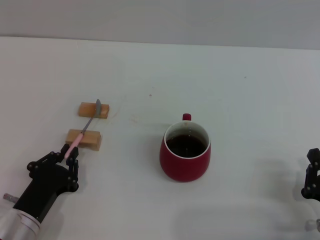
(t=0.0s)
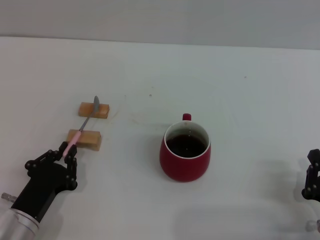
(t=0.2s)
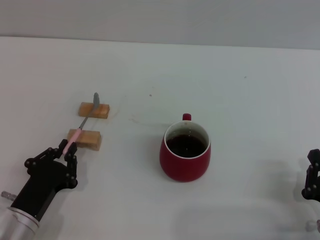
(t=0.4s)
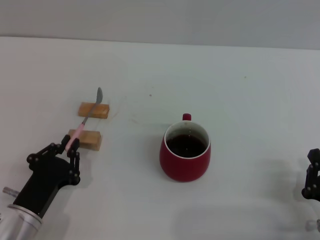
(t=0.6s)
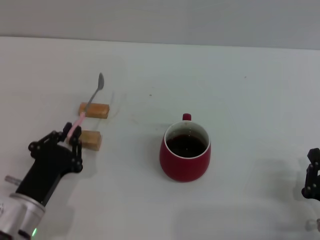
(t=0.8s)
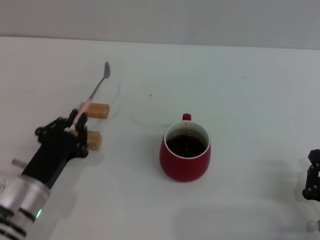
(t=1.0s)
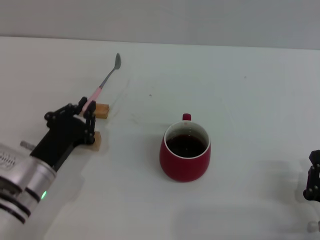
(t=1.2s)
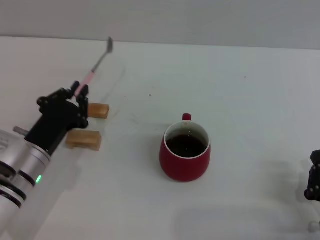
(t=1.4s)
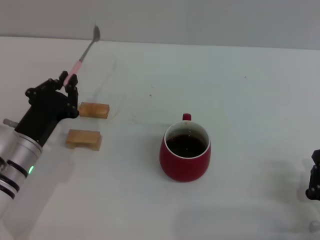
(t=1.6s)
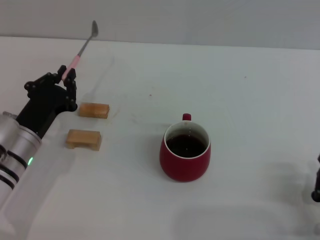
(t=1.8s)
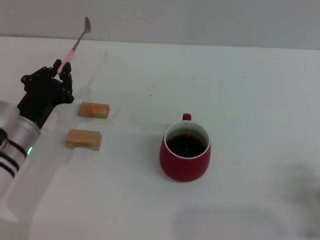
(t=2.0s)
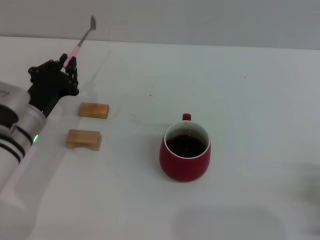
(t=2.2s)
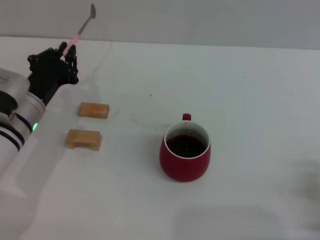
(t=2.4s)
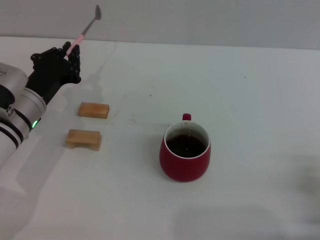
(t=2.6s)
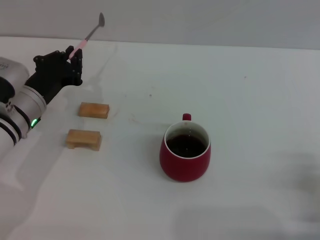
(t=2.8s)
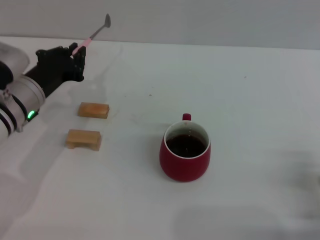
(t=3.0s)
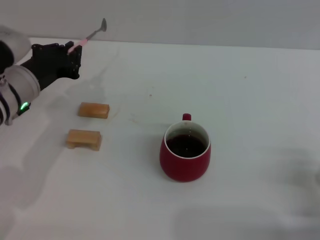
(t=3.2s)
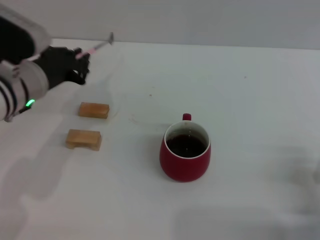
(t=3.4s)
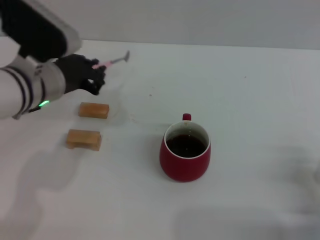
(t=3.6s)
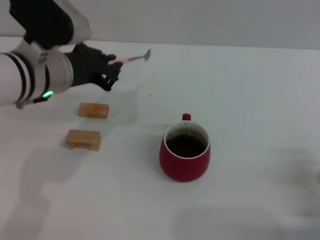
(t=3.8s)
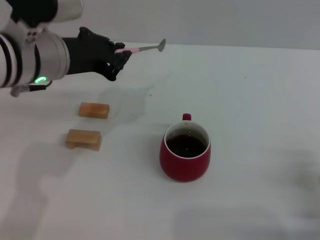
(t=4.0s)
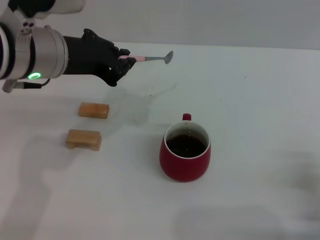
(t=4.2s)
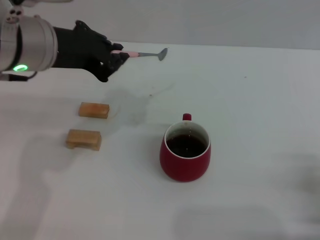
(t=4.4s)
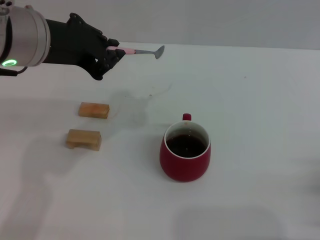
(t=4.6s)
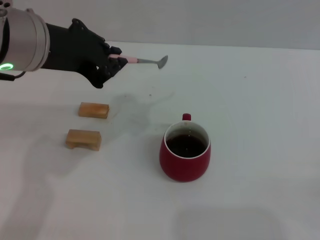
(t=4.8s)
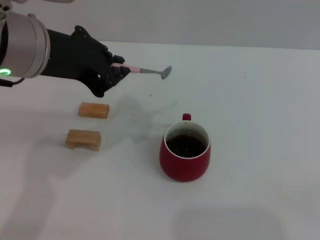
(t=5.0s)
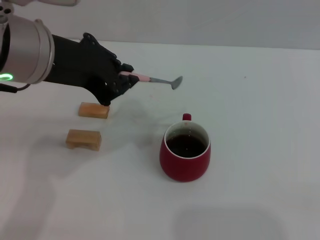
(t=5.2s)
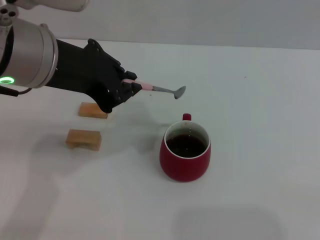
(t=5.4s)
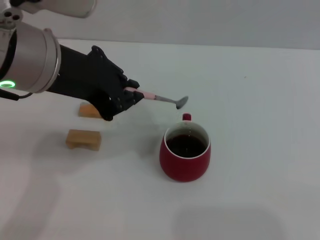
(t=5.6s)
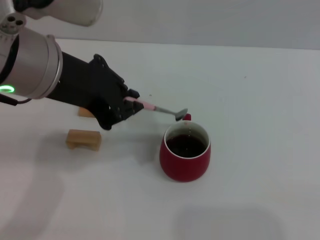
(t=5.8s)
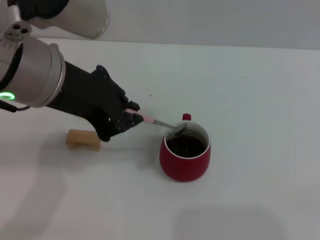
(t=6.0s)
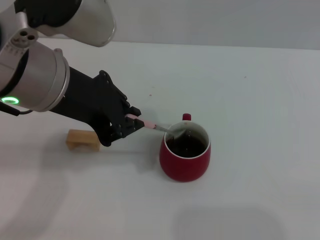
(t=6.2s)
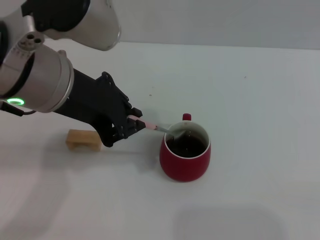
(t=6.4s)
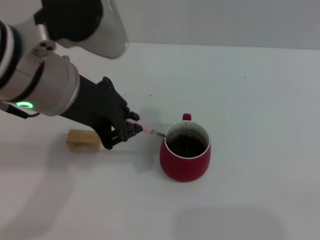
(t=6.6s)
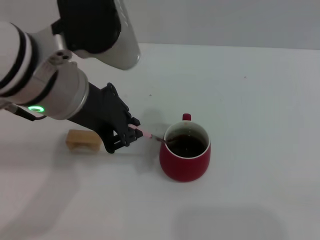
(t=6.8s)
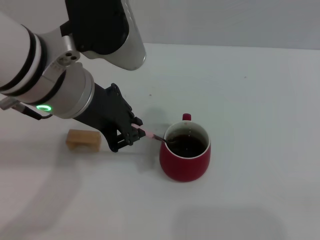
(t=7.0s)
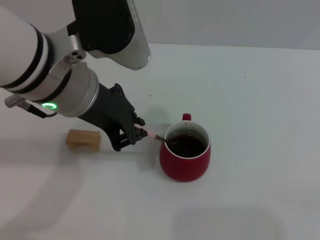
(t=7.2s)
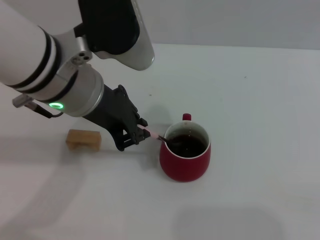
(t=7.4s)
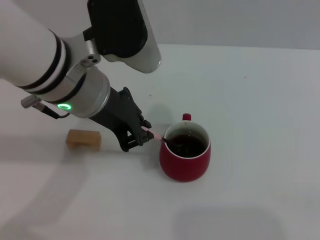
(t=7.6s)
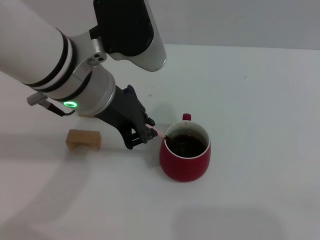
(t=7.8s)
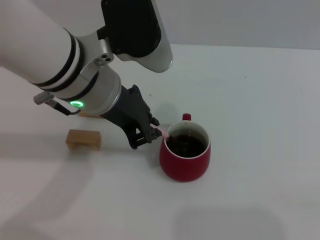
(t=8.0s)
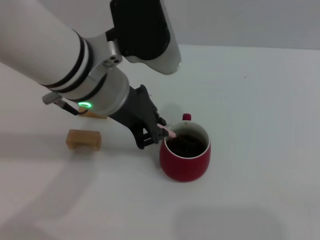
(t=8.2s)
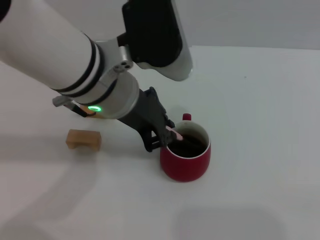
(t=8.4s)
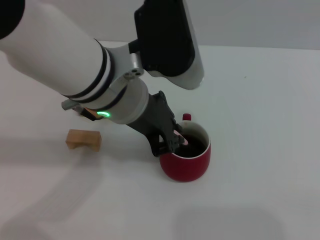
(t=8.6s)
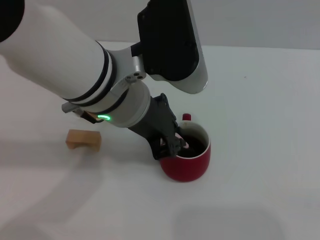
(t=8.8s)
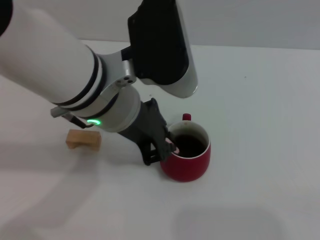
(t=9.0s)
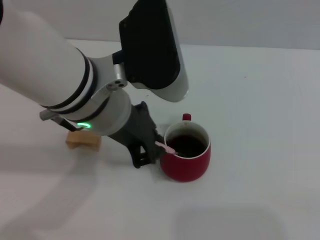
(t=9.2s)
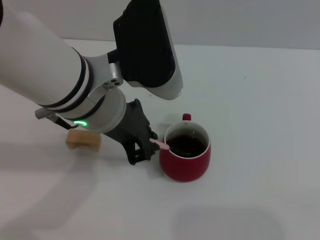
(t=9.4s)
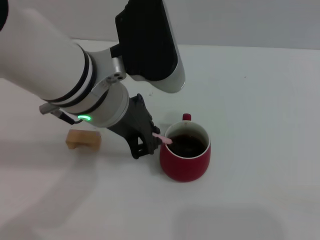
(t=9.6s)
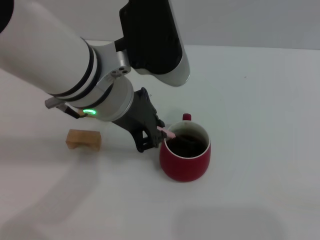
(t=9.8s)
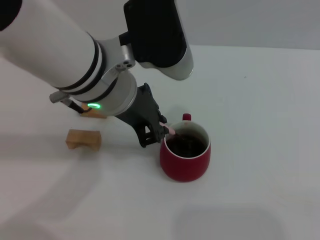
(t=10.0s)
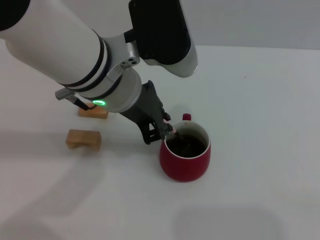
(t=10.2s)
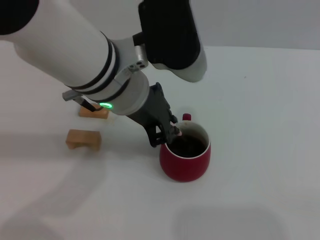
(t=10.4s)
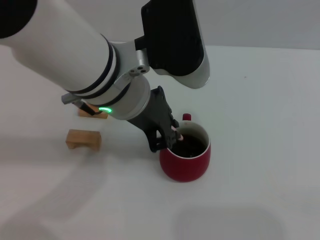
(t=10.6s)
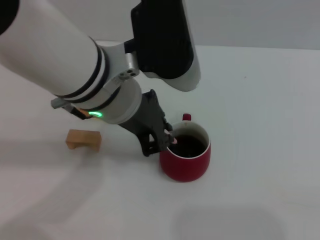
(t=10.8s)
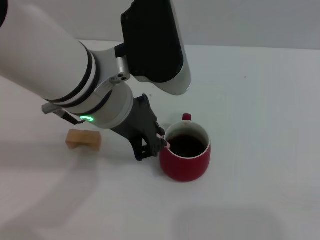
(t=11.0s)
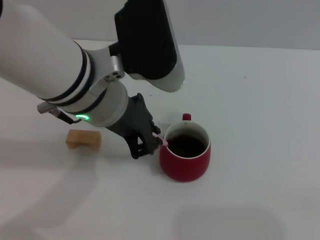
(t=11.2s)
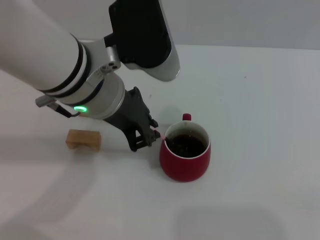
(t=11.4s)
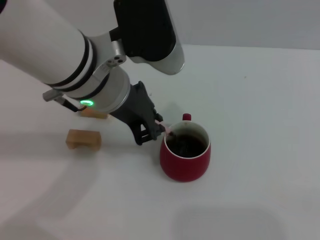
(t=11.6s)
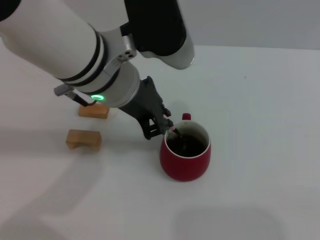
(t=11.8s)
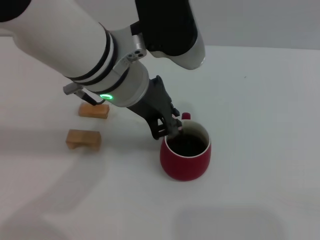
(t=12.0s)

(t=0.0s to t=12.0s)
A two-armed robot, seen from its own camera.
Task of the whole recording: Move the red cup to the center, lift the pink spoon, stir it three times in the cup, and put the spoon into the cup.
Step, t=0.0s - t=2.4s: Pick up the spoon with the left gripper.
t=0.0s - t=1.6s: The left gripper travels forward and upward by approximately 10 cm.
t=1.6s - t=3.0s: The left gripper is displaced forward and upward by about 10 cm.
t=3.0s - t=4.4s: The left gripper heads upward, covering about 15 cm.
t=4.4s - t=6.0s: The right gripper shifts some 5 cm to the right; the left gripper ends up some 5 cm from where it was.
t=6.0s - t=7.6s: The left gripper moves about 5 cm.
t=9.0s - t=12.0s: There are only small adjustments of the grippers.

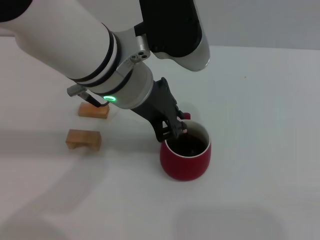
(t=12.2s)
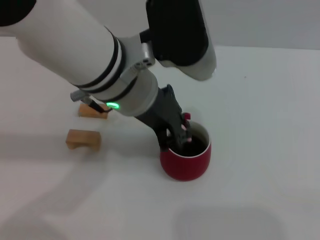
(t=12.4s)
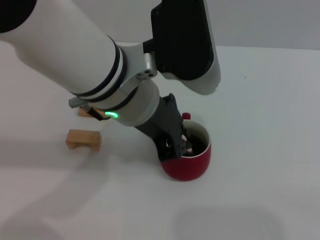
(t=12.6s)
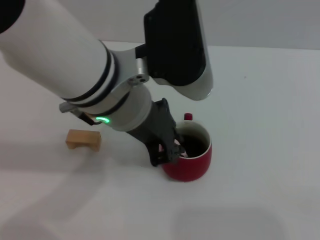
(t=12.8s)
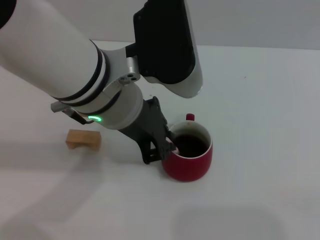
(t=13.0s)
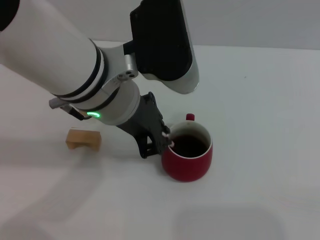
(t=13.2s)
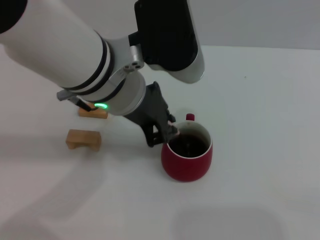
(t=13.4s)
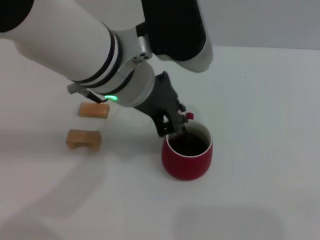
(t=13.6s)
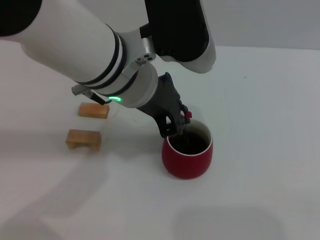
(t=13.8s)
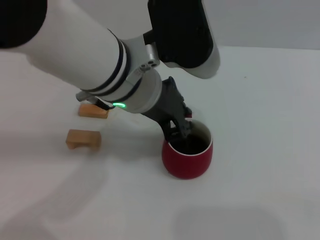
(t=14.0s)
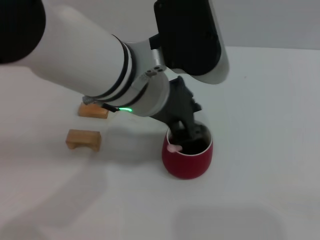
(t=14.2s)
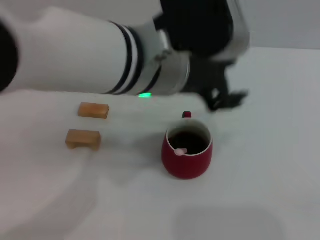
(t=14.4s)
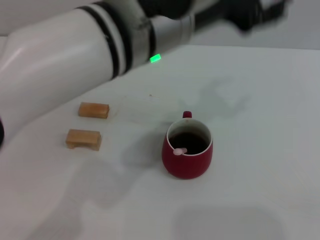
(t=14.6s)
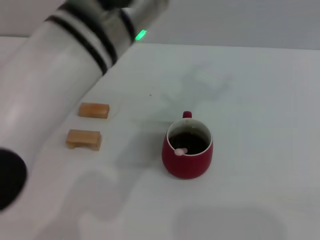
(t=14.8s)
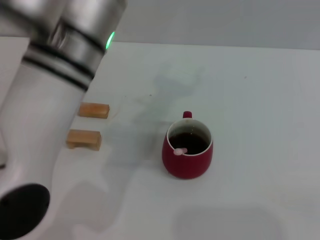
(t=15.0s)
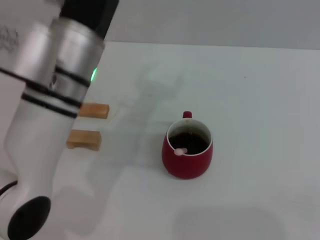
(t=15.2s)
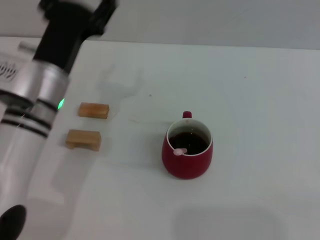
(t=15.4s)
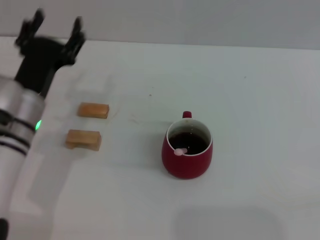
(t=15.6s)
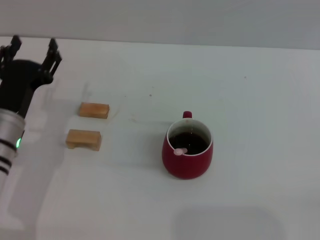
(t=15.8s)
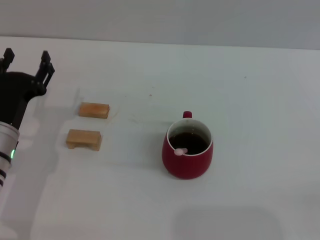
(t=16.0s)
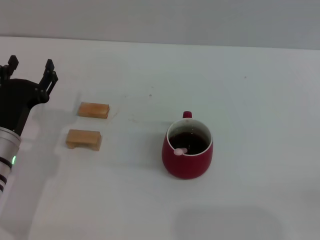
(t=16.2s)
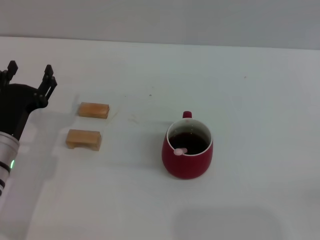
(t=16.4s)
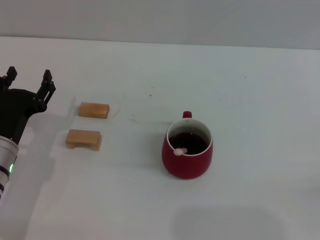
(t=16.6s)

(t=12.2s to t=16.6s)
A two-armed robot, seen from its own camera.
Task of the whole recording: Move the red cup to the center, lift the pink spoon, stir it three times in the cup, and put the spoon into the cup.
Step, t=12.2s - t=14.2s: Stir the coffee in the cup with the left gripper.
t=12.2s - t=13.6s: The grippers stay close to where they were, moving slightly.
t=13.6s - t=15.2s: The left gripper travels downward by roughly 5 cm, and opens up.
t=15.2s - t=16.6s: The left gripper goes approximately 20 cm downward and to the left.
